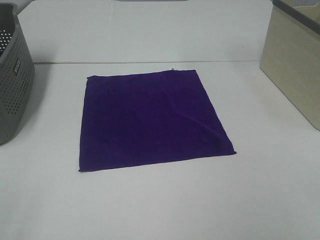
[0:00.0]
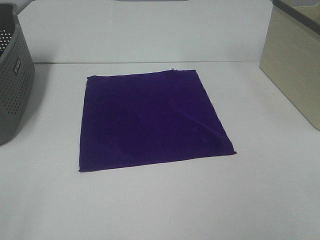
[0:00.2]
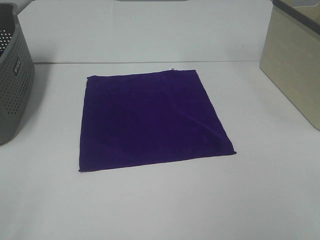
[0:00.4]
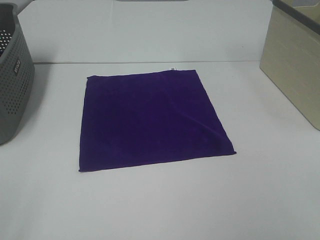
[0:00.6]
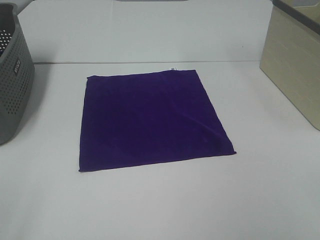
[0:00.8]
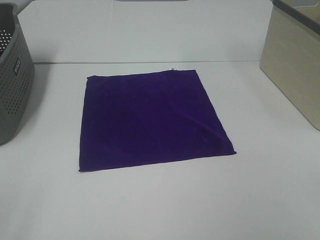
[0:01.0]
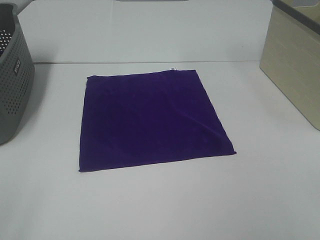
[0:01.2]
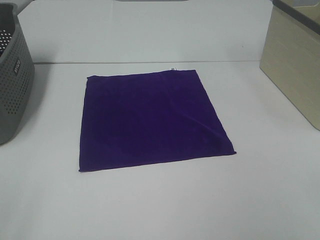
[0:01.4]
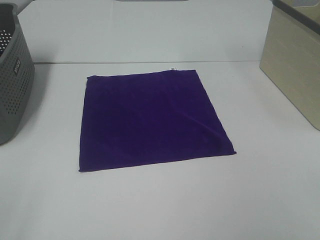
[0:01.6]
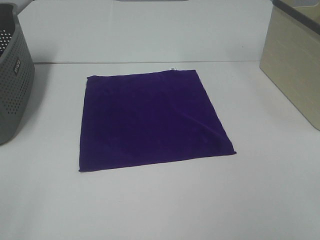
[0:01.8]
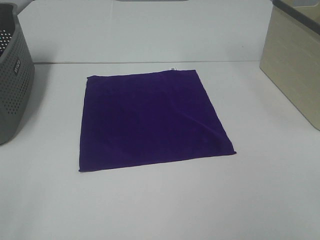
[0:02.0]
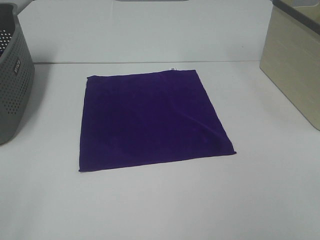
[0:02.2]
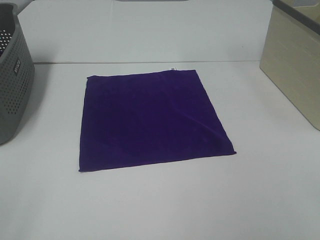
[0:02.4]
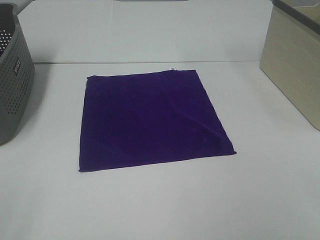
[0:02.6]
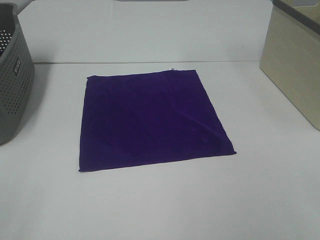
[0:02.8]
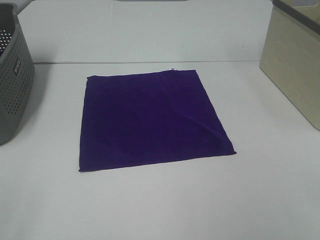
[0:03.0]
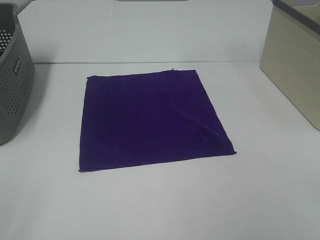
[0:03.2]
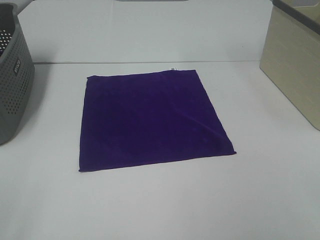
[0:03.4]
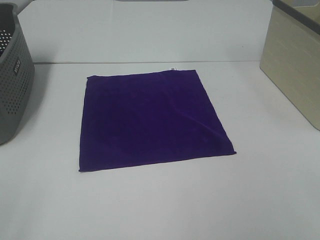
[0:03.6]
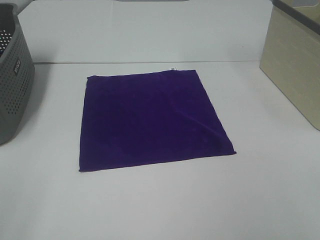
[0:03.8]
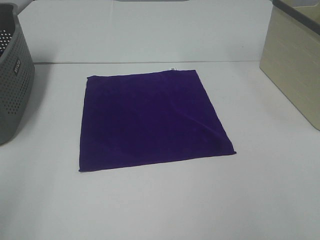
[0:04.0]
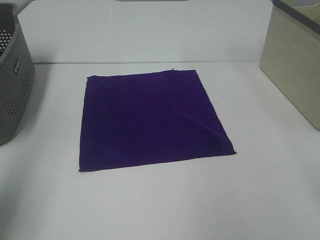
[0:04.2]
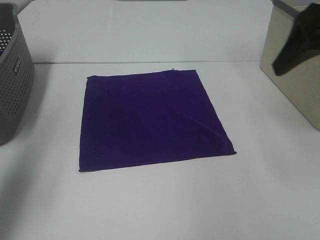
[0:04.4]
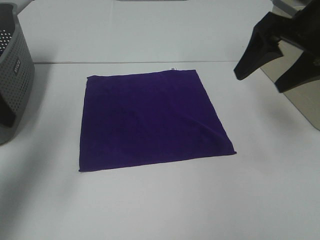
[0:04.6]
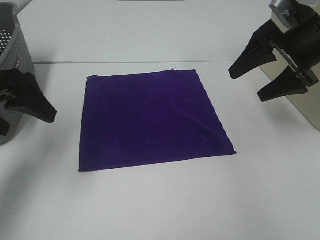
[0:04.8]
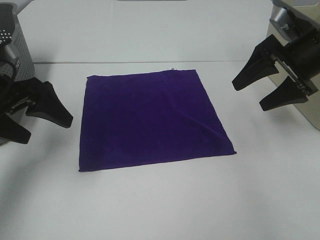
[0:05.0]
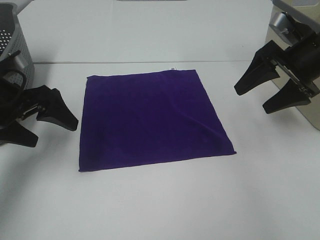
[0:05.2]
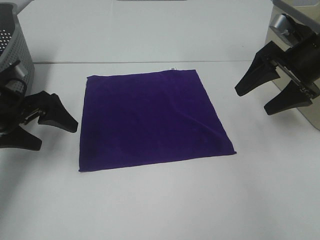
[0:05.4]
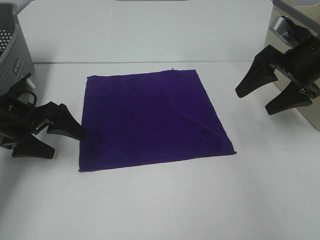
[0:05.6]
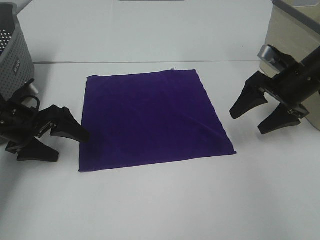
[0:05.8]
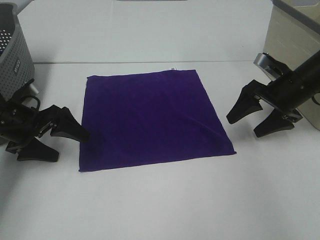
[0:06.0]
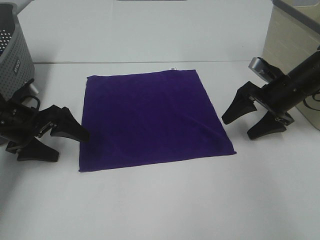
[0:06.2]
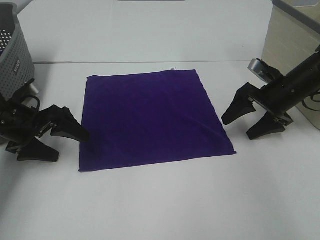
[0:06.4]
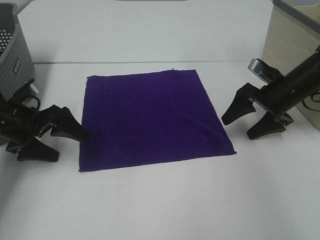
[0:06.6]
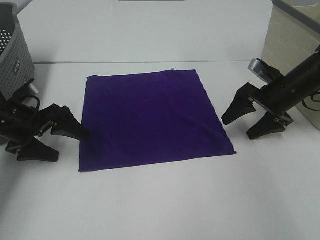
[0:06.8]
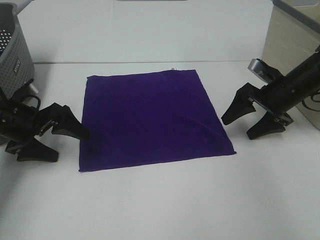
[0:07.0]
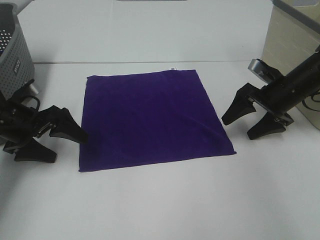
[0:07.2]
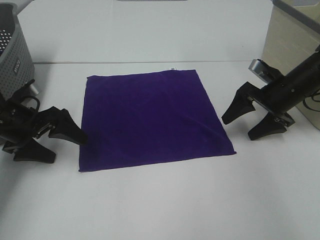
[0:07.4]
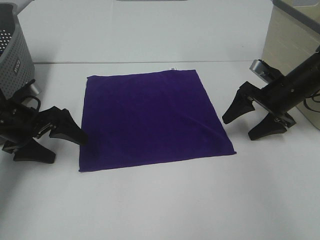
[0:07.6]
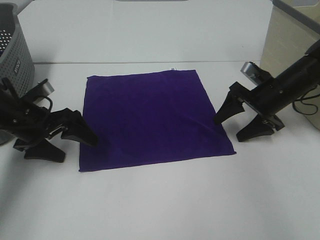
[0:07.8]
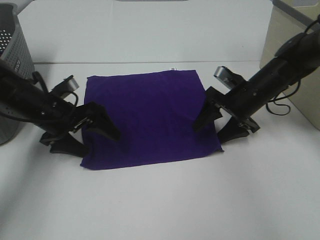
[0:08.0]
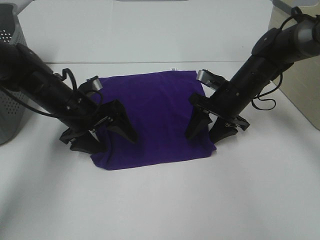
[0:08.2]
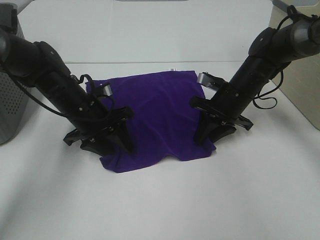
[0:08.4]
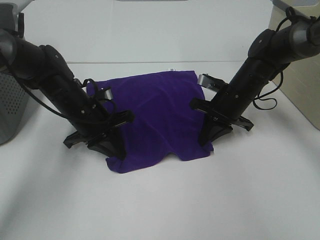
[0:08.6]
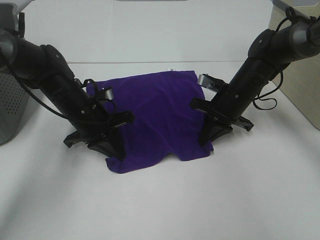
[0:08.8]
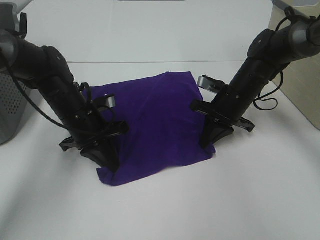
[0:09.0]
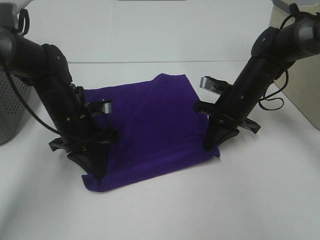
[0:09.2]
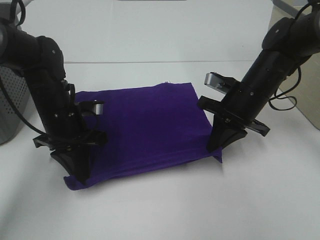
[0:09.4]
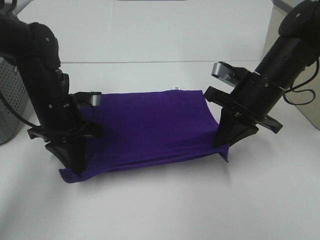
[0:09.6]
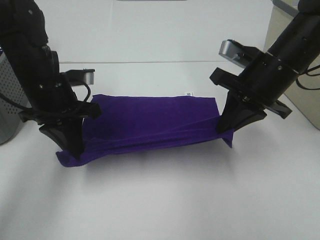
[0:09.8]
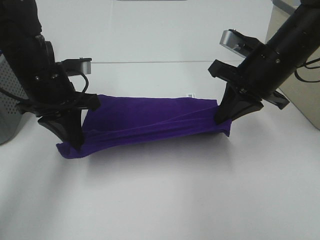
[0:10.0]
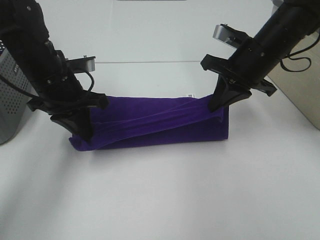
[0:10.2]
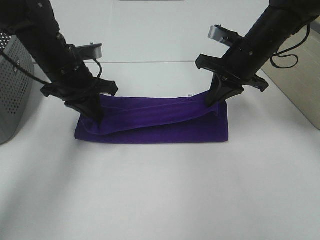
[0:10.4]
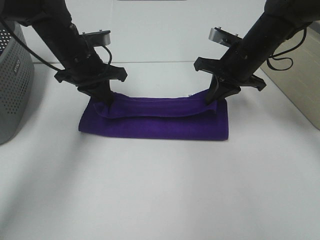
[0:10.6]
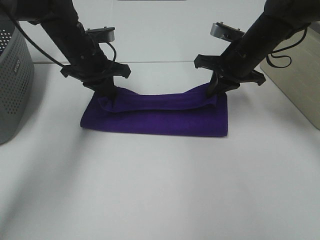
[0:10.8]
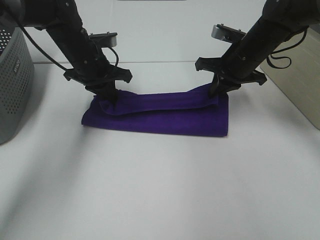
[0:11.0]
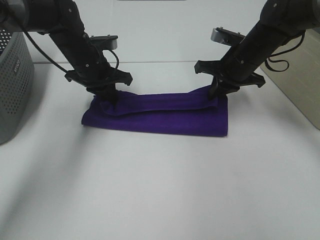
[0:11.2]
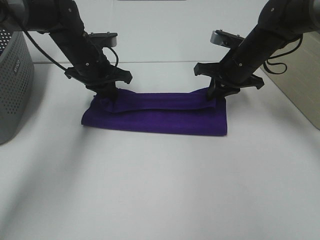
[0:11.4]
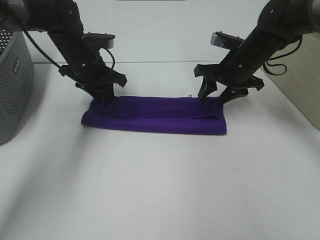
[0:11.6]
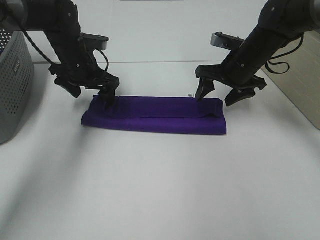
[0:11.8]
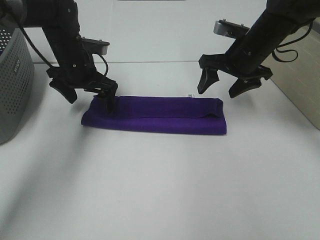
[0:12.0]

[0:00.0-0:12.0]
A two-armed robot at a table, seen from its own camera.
Task of the whole recording: Fold towels.
Step, 0:00.0 to 0:08.4: Left hand: grab the bottom left corner of purple towel.
Step, 0:00.0 to 0:08.4: Right hand: grab the bottom right corner of purple towel.
Step, 0:08.6 to 0:11.4: Left hand: fold the purple towel up.
Step, 0:08.6 to 0:11.4: Right hand: fold the purple towel up.
0:00.0 to 0:03.0: Neither gripper changes place.
0:03.0 to 0:04.4: Both grippers move forward, about 25 cm.
0:04.4 to 0:06.0: The two grippers go about 25 cm downward and forward.
0:06.0 to 0:07.6: There are only small adjustments of the grippers.
0:07.6 to 0:09.0: The right gripper goes roughly 10 cm to the left, and closes its fingers, while the left gripper goes about 10 cm to the right, and closes.
0:09.0 to 0:10.4: Both grippers move upward, roughly 10 cm.
0:10.4 to 0:12.0: The left gripper is displaced forward by some 5 cm, and opens up. Meanwhile the right gripper opens.

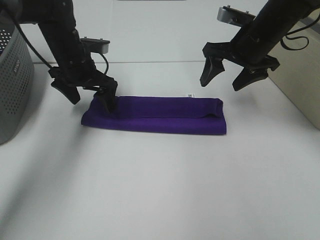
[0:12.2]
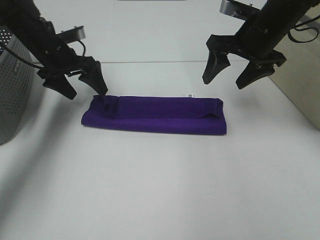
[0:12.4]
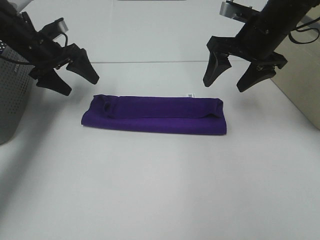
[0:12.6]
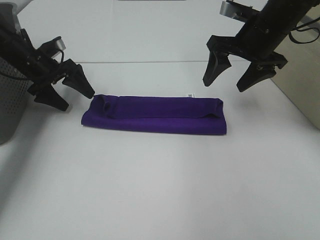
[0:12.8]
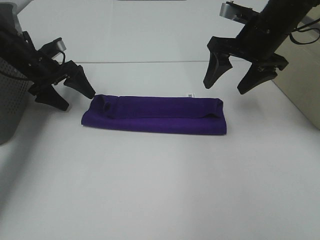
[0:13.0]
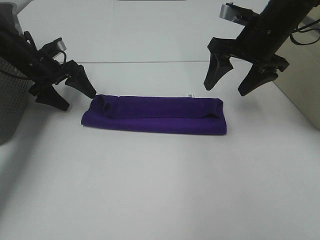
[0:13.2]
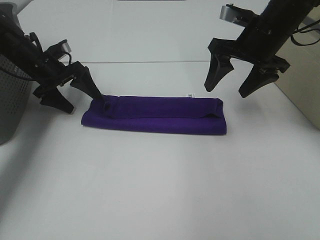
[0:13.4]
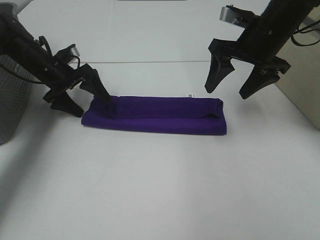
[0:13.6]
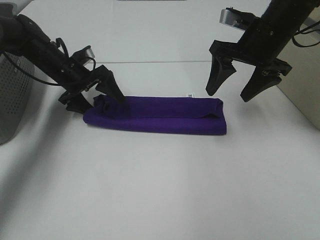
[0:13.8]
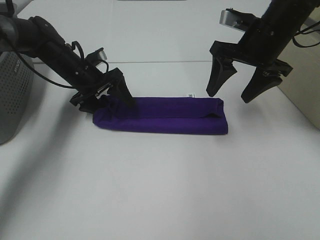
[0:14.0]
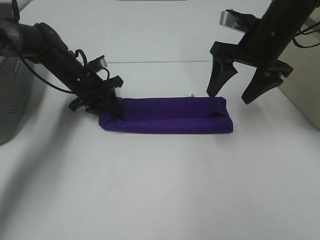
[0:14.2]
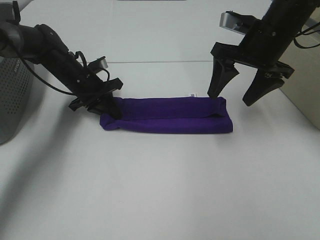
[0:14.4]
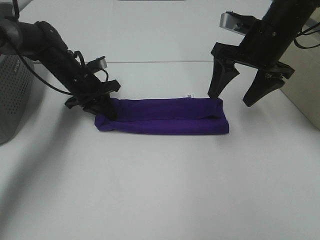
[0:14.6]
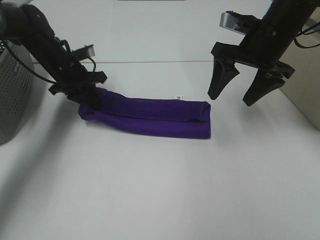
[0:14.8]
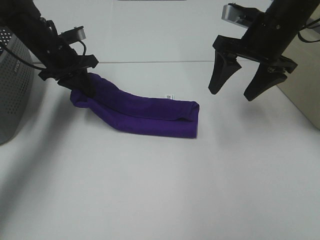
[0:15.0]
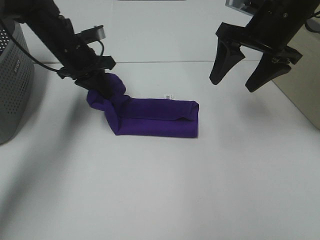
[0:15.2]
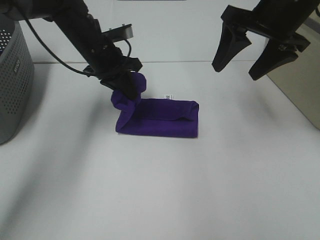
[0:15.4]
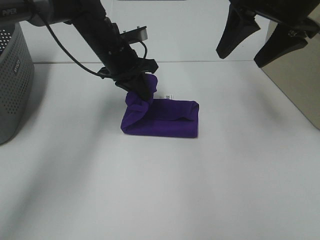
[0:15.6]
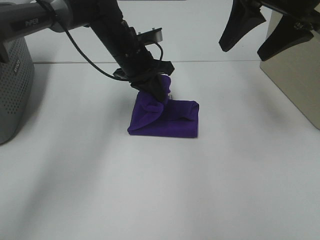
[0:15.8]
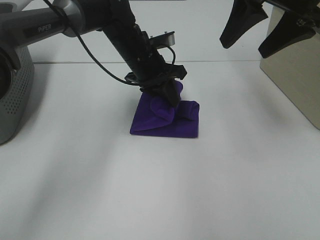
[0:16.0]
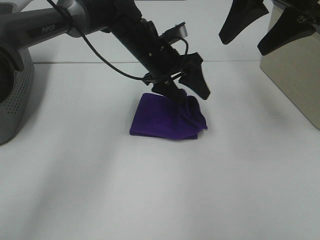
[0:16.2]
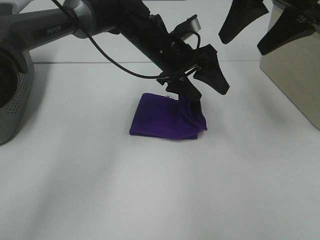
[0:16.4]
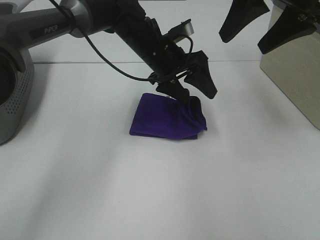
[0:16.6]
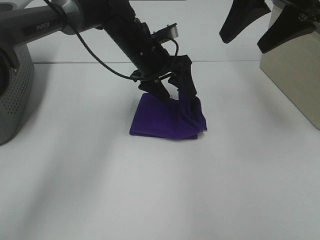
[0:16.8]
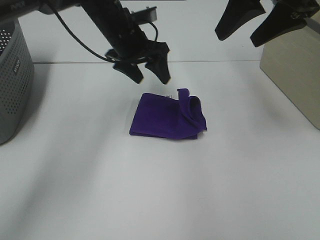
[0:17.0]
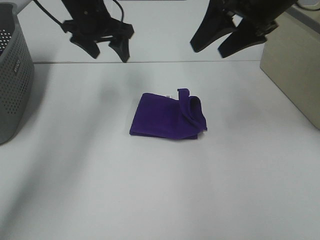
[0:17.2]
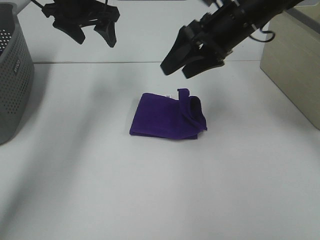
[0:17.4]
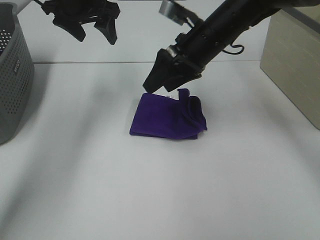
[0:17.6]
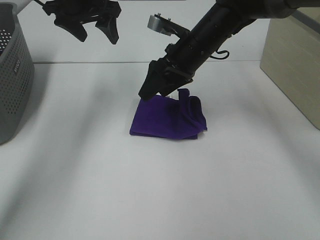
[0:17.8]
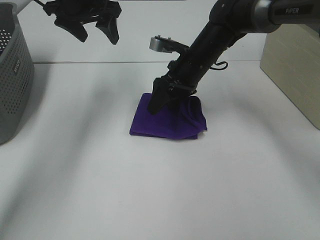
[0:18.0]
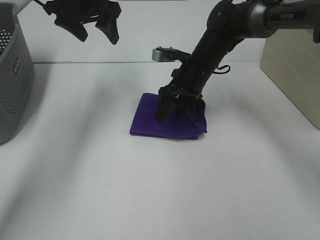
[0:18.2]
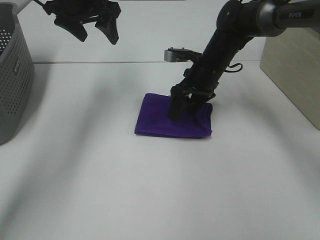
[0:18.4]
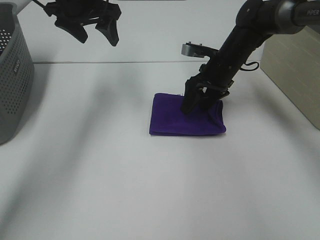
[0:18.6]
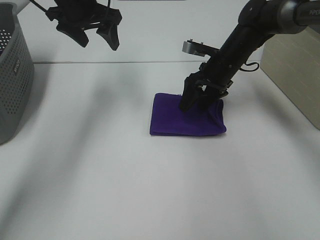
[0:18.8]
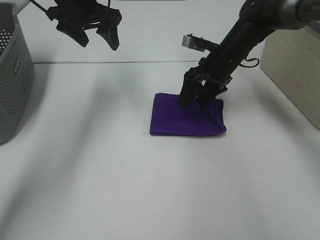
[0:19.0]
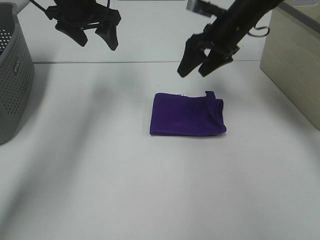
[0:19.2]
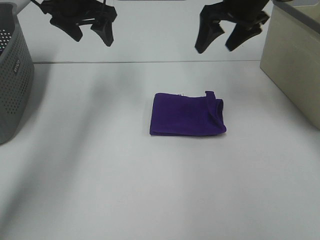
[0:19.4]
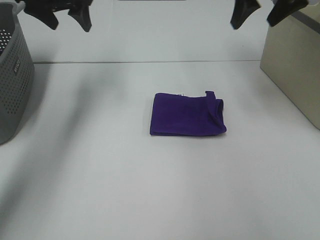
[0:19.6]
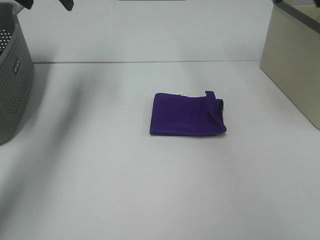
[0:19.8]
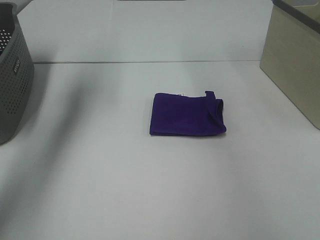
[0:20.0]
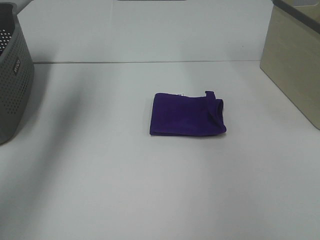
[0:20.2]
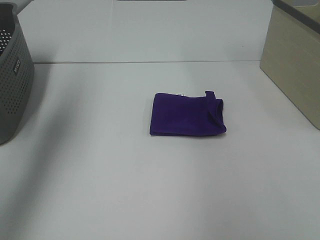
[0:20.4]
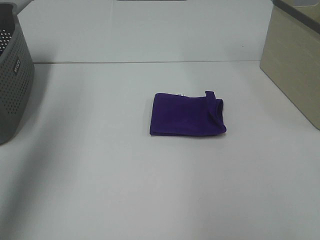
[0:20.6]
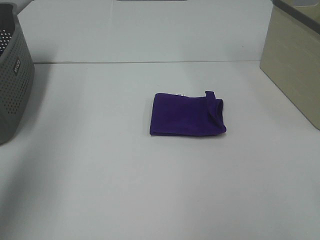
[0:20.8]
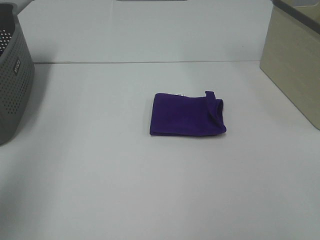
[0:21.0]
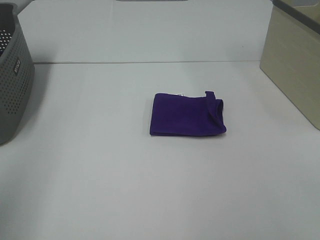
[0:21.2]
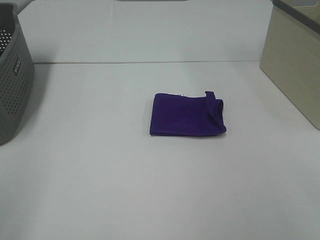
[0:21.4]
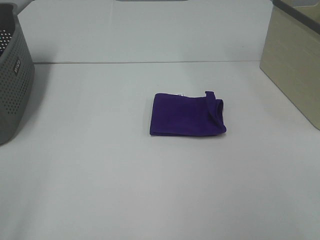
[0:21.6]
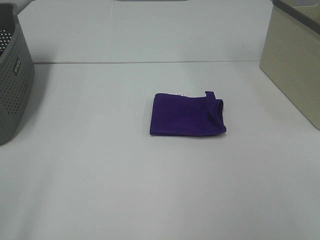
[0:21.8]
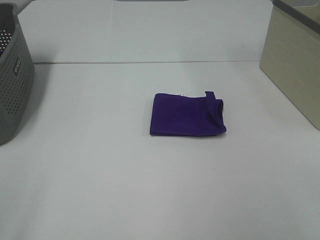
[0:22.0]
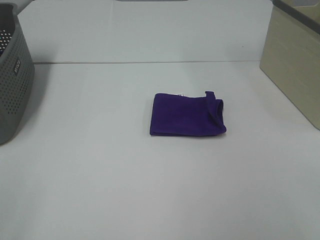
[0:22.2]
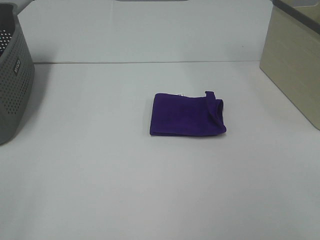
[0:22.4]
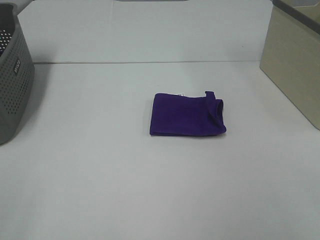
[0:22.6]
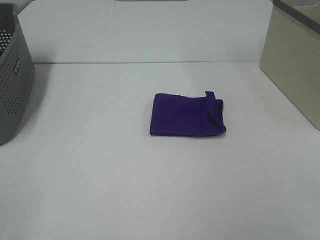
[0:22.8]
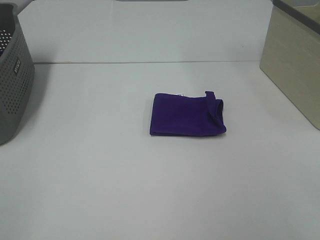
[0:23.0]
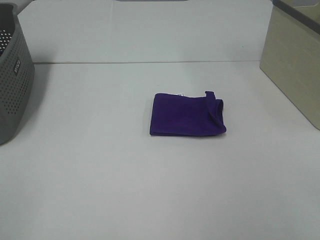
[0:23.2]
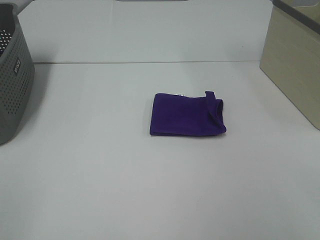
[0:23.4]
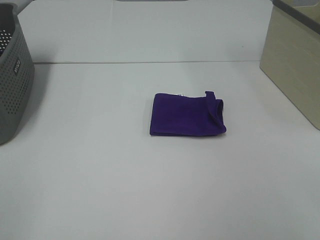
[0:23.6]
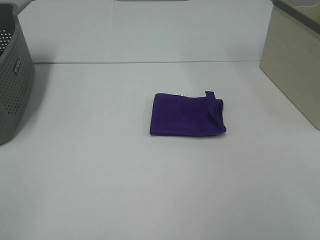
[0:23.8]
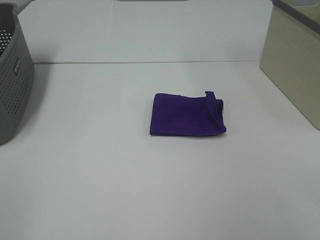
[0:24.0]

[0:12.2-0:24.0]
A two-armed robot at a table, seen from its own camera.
Task of the whole recording: Fold towels.
Step, 0:12.2 to 0:16.0: Left hand: fold the purple towel from left to right.
Step, 0:16.2 to 0:19.0: Right hand: adjust the purple towel.
0:12.2 to 0:13.6: The left gripper goes about 5 cm to the left.
0:13.6 to 0:15.2: The left gripper goes roughly 10 cm upward and to the right, and closes its fingers.
0:15.2 to 0:16.6: The left gripper shifts roughly 15 cm to the right, and opens its fingers, while the right gripper travels upward by roughly 10 cm.
0:16.6 to 0:18.2: The left gripper heads to the left and upward, covering some 20 cm; the right gripper shifts approximately 25 cm downward, forward and to the left.
0:18.2 to 0:19.6: The left gripper goes roughly 5 cm to the left; the right gripper shifts roughly 25 cm upward and to the right.
0:19.6 to 0:21.0: The two grippers go approximately 40 cm backward.
0:21.0 to 0:22.6: The left gripper travels backward by about 15 cm.
